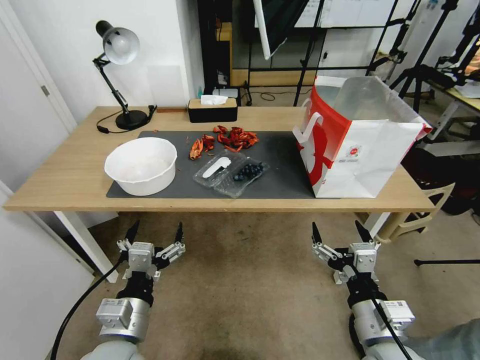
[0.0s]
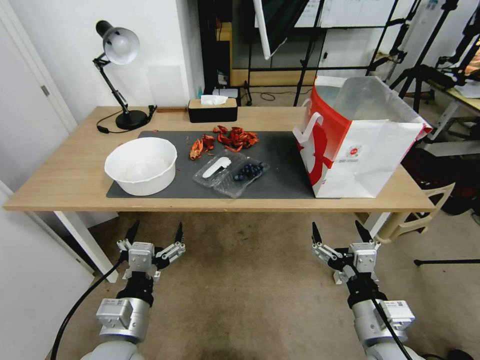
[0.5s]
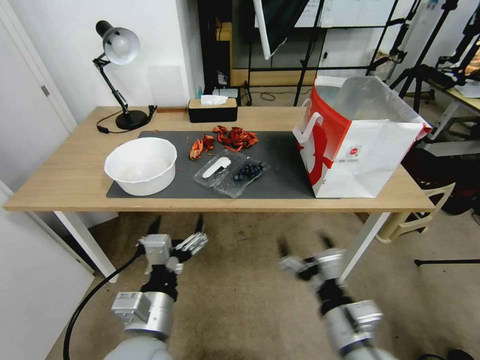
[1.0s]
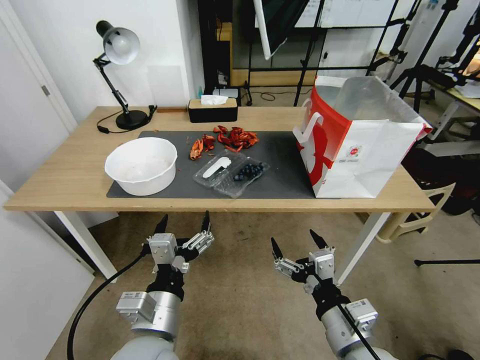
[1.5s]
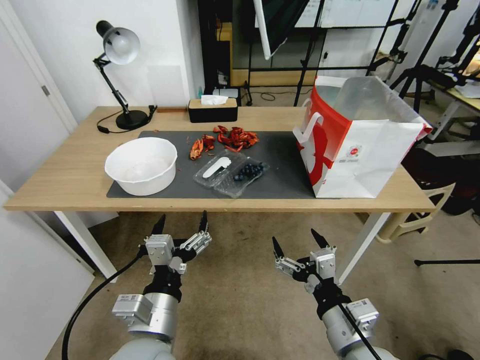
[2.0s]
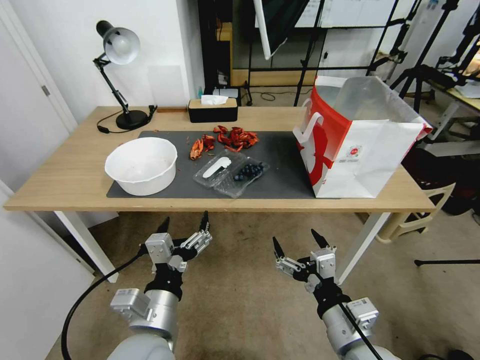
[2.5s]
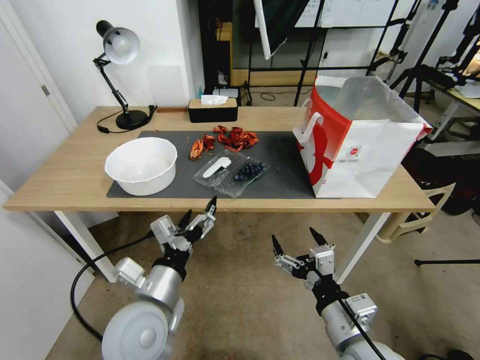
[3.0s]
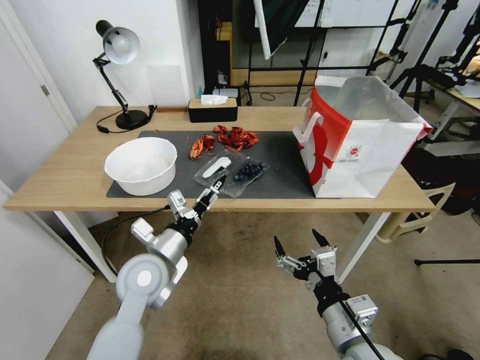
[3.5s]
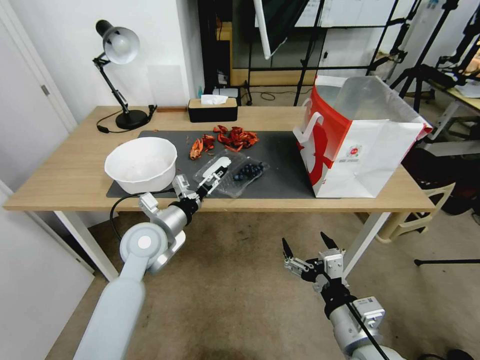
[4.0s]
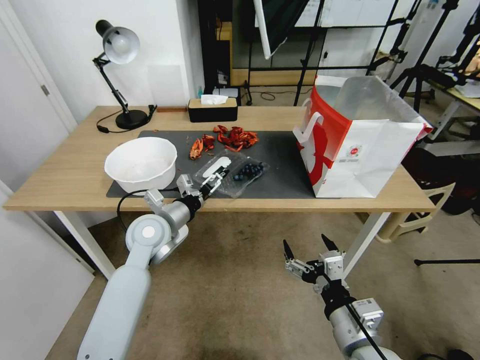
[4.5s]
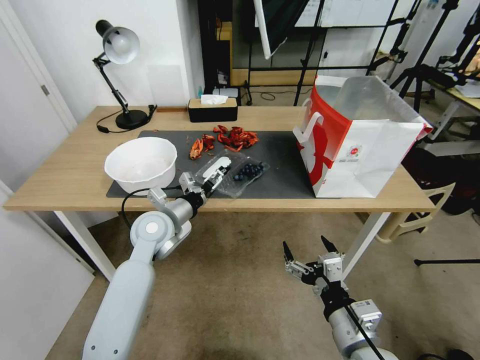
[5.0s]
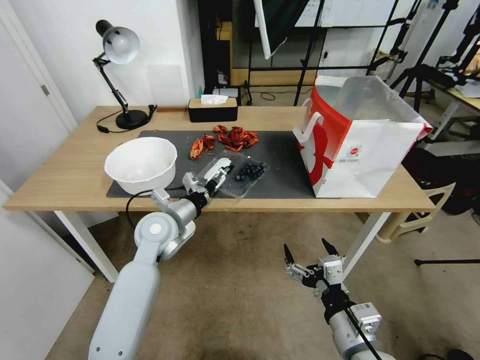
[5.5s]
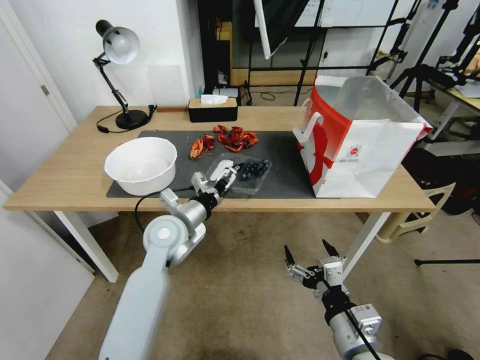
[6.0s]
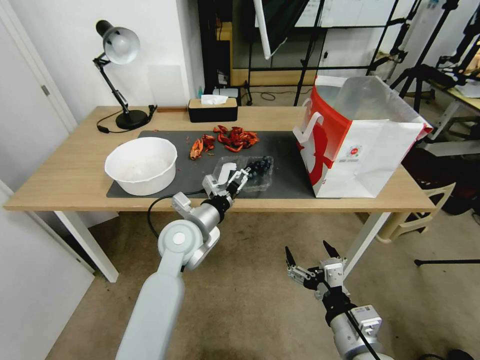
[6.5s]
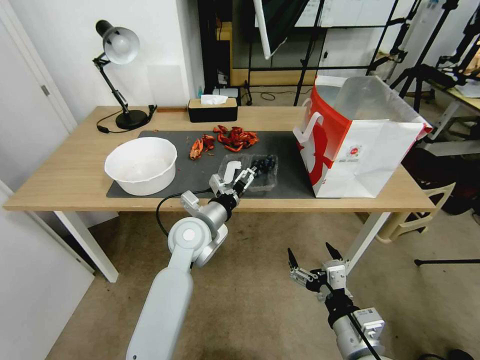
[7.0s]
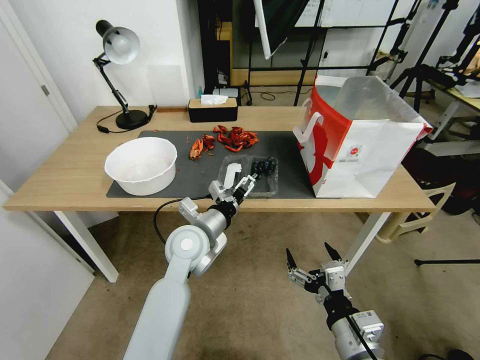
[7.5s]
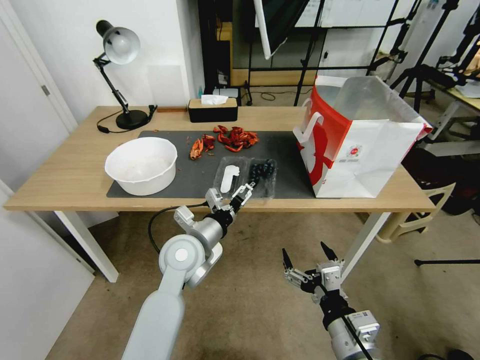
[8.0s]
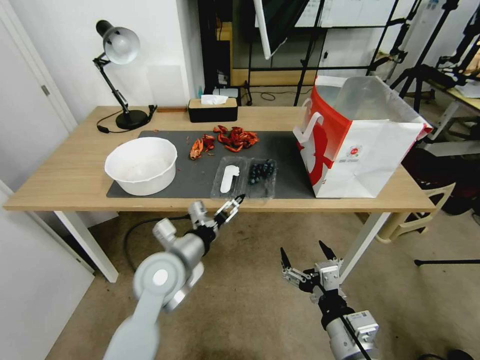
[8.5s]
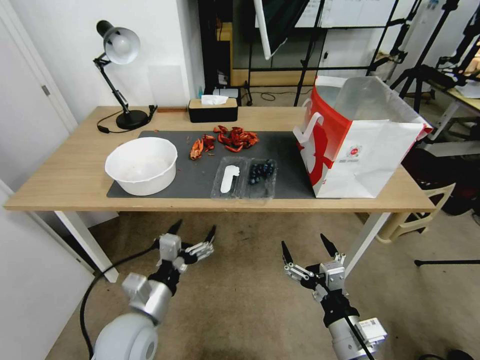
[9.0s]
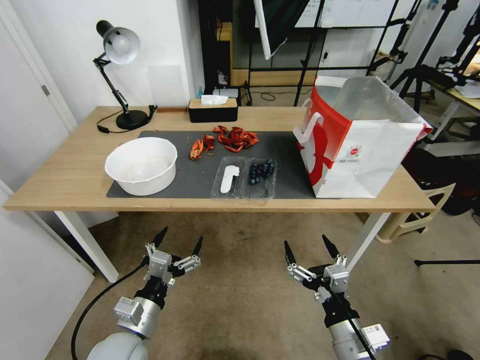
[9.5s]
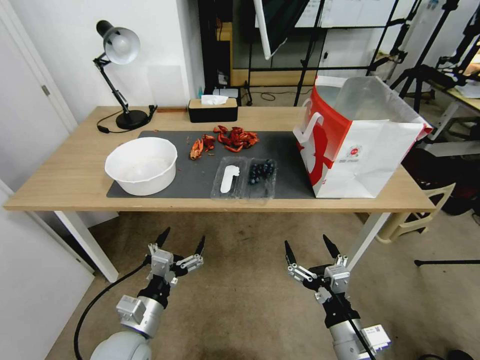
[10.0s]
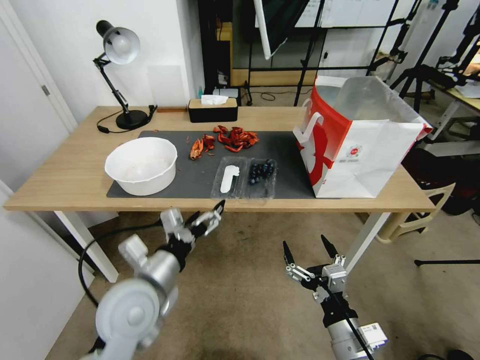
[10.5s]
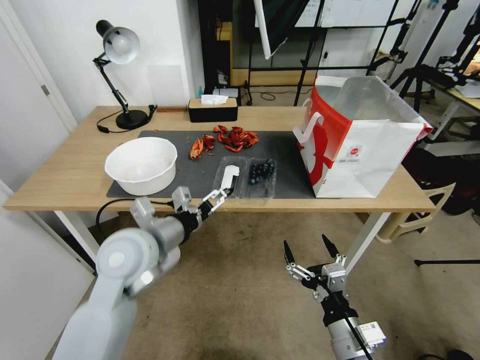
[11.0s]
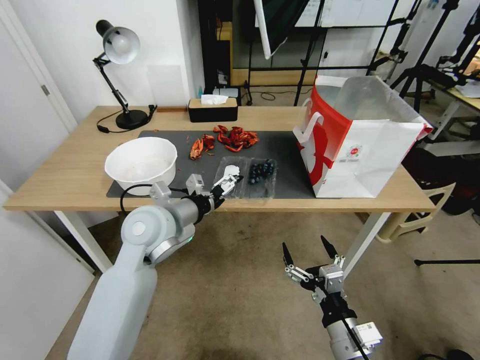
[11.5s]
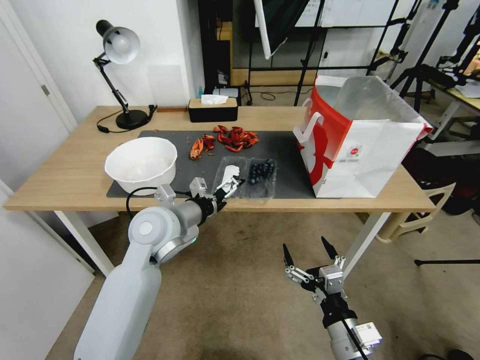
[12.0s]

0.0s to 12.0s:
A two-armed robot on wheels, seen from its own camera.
Task of the whole recording: Close the takeout container lid, then place the container into the takeout bag.
2.0s to 4.0s: The left gripper travels forward by about 20 cm.
4.0s to 6.0s: The grippers stay close to where they were, moving slightly.
6.0s to 8.0s: The left gripper changes place by approximately 5 cm.
8.0s to 10.0s: The left gripper is displaced backward, to the left and downward by some 20 cm.
10.0s to 12.0s: The left gripper moves forward and upward, about 25 cm.

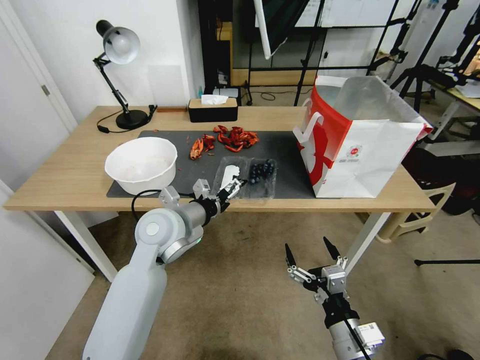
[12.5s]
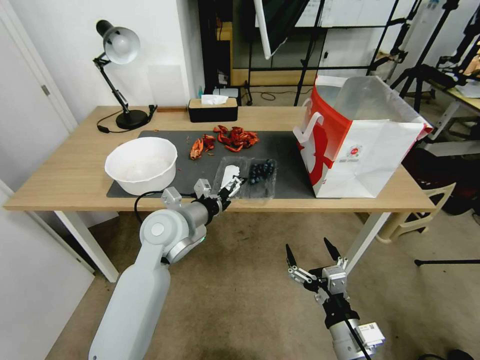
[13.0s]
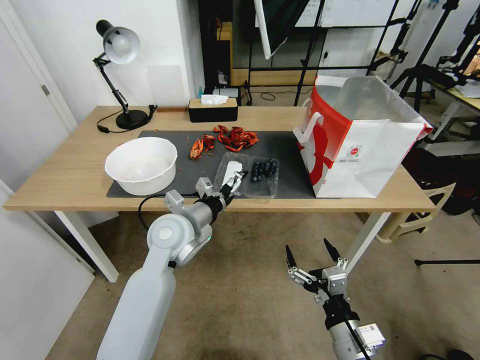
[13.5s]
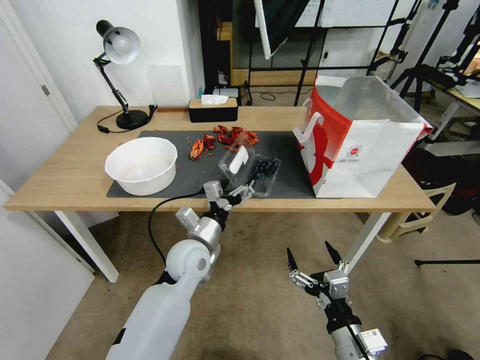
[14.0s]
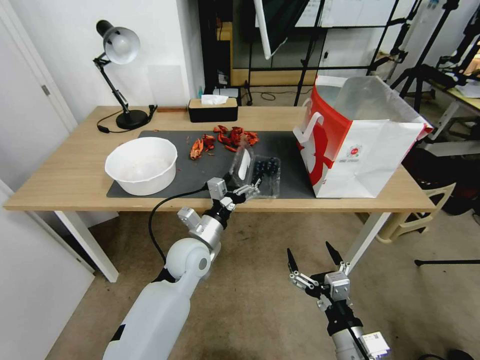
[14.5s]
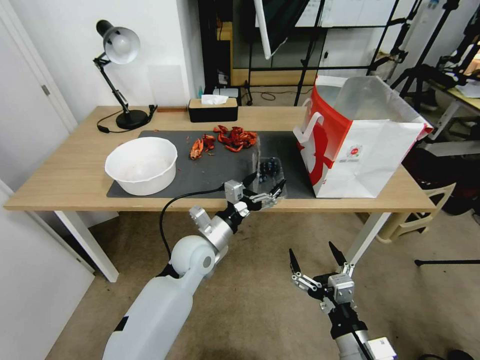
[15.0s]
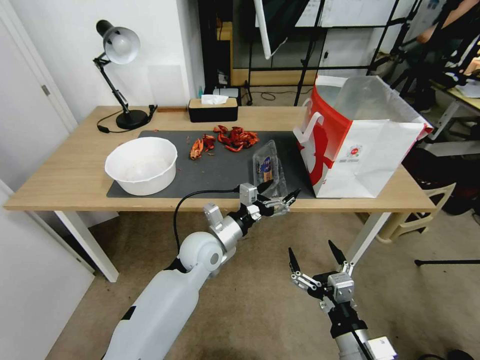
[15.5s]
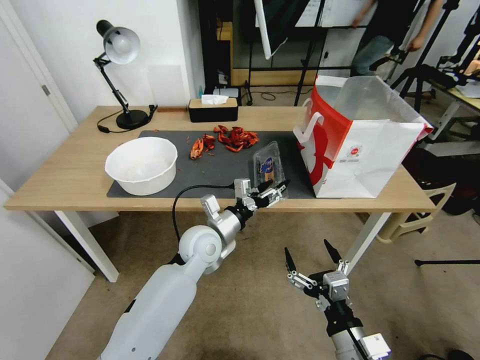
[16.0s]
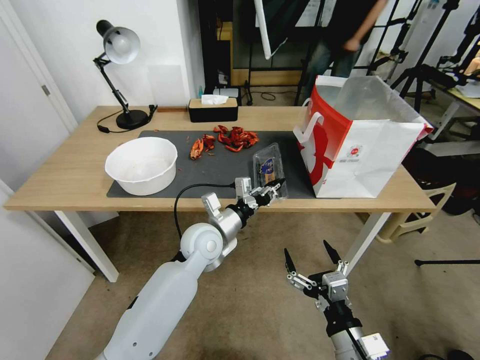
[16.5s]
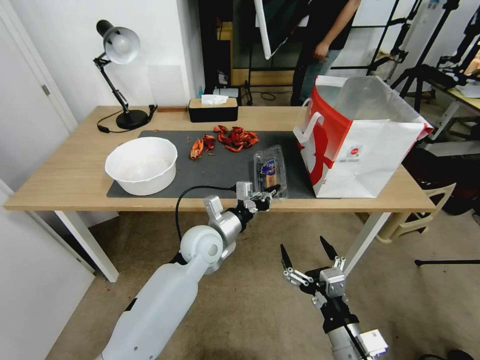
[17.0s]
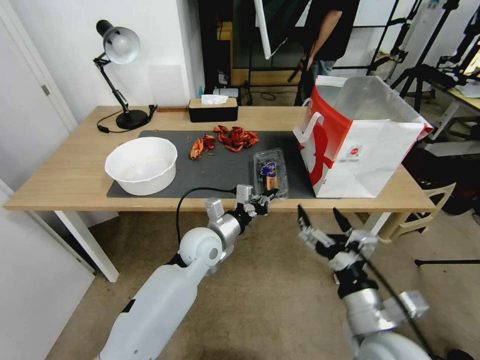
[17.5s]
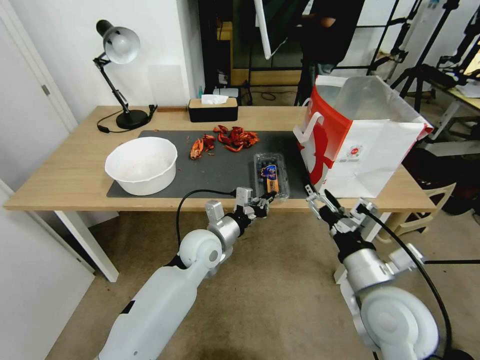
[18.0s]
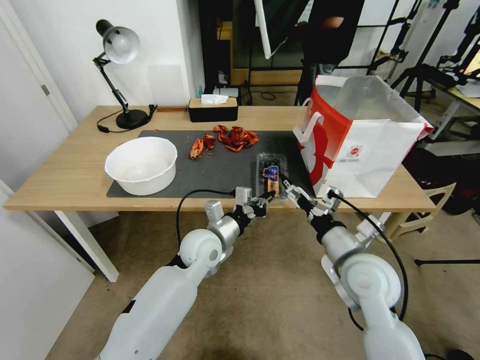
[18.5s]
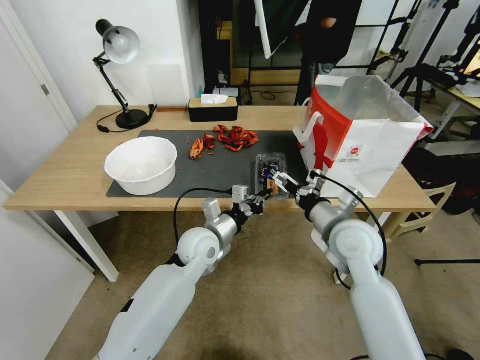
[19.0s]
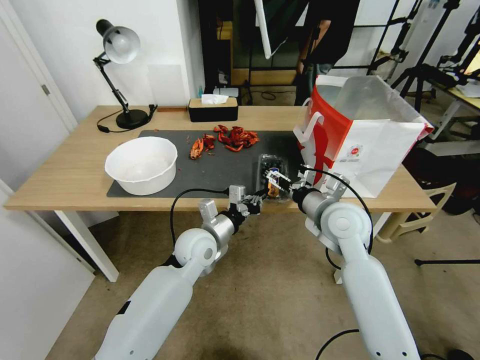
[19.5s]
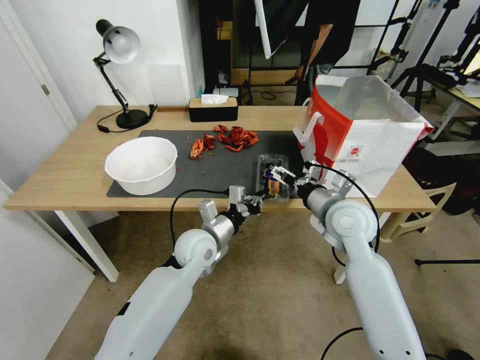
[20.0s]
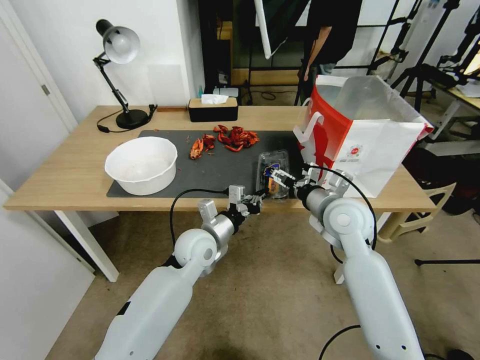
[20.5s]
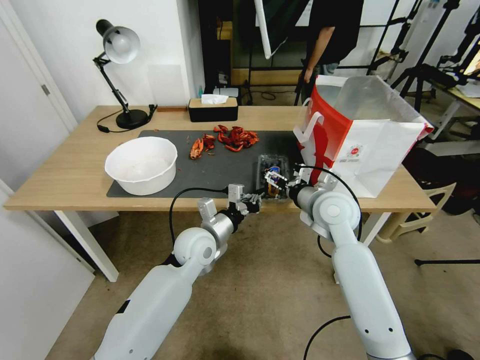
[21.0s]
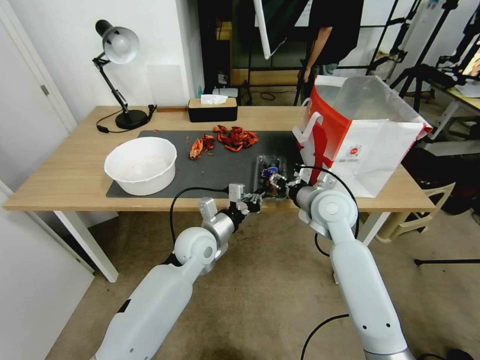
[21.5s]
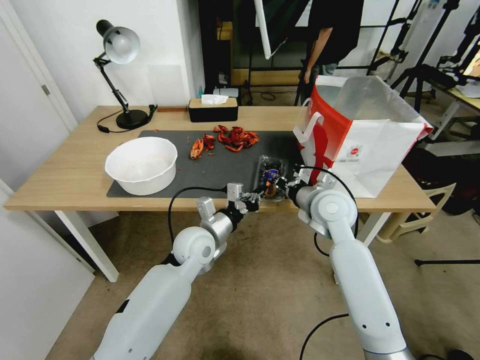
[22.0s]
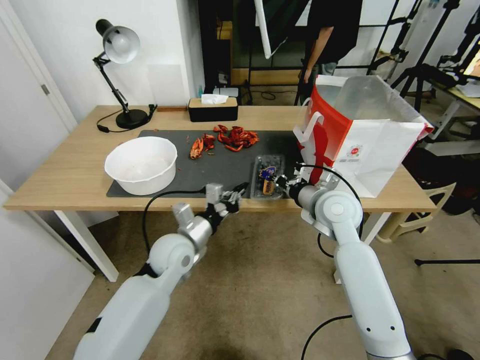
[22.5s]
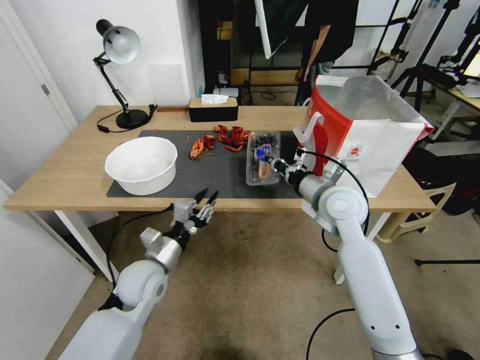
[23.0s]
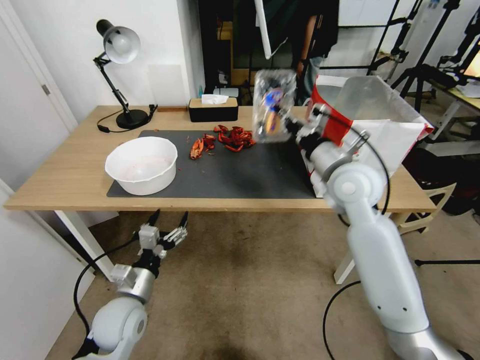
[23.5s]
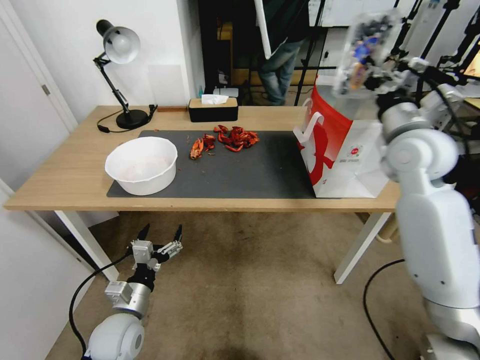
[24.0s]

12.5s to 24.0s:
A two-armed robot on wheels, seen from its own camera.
Task of the whole recording: Close the takeout container lid, then place the container into the takeout bag.
12.5s to 14.5s: The left gripper shifts some 10 cm downward.
14.5s to 16.5s: The left gripper closes up.
16.5s to 18.5s: The right gripper goes about 20 cm forward and upward.
18.5s to 20.0s: The right gripper is displaced forward by some 10 cm.
20.0s to 22.0s: The right gripper closes.
22.0s to 24.0s: The left gripper travels backward, to the left and downward by approximately 25 cm, and opens up. The right gripper travels upward and to the right by some 20 cm.

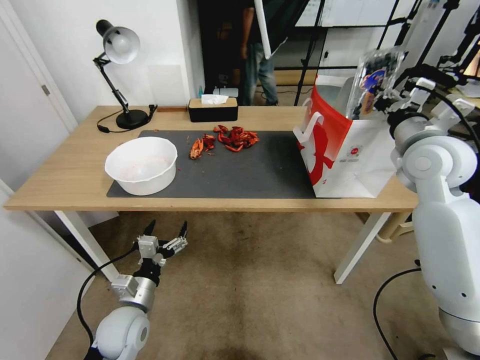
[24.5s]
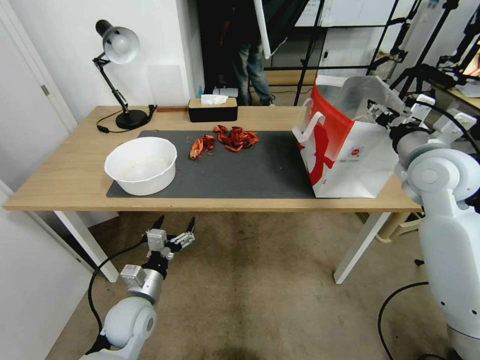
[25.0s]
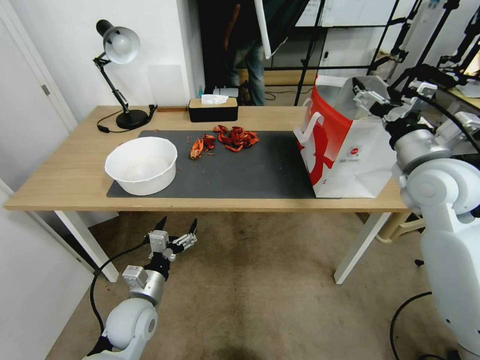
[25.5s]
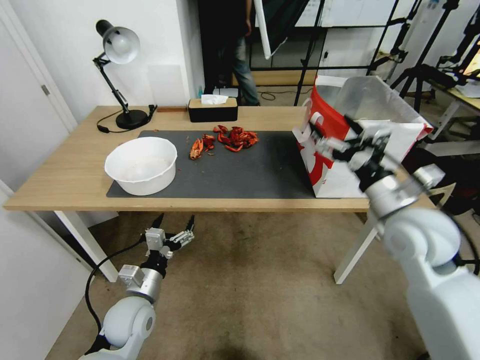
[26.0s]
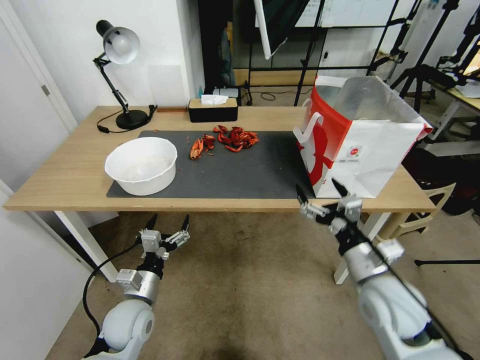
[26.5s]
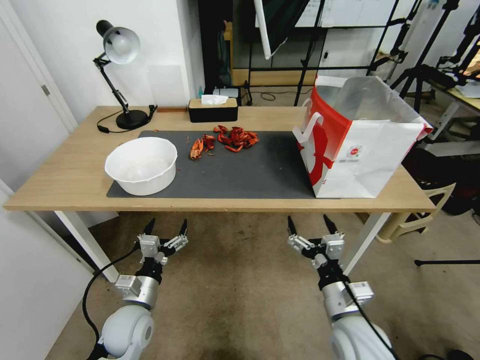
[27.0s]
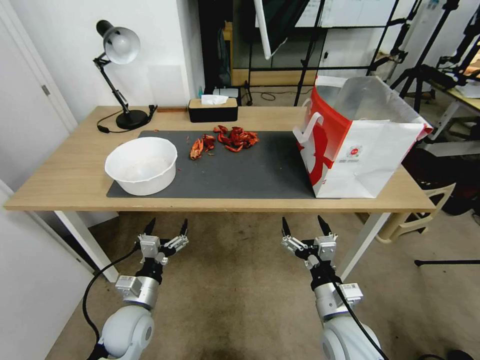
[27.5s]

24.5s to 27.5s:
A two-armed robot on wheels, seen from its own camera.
Task of the whole recording: Close the takeout container lid, then place the container into the takeout bag.
24.5s to 26.0s: The right gripper heads backward and downward, covering roughly 10 cm, and opens.
26.0s to 27.5s: The right gripper is displaced downward, backward and to the left by roughly 25 cm.
